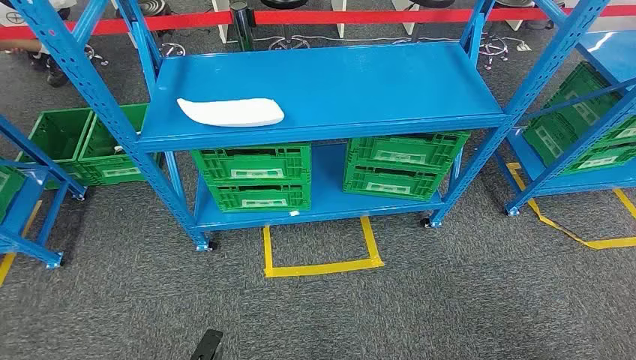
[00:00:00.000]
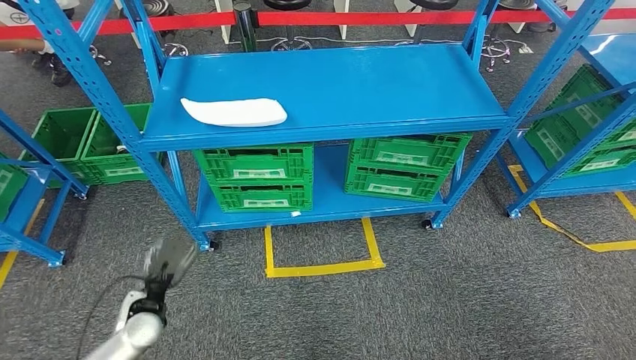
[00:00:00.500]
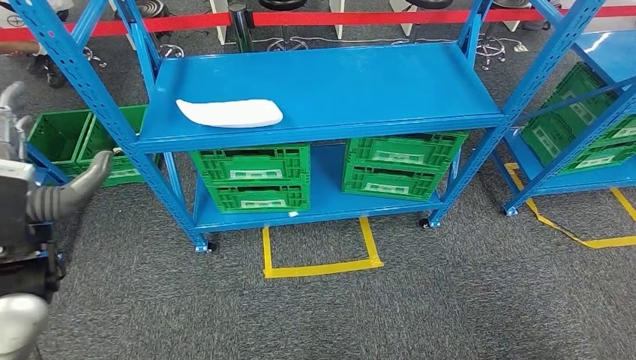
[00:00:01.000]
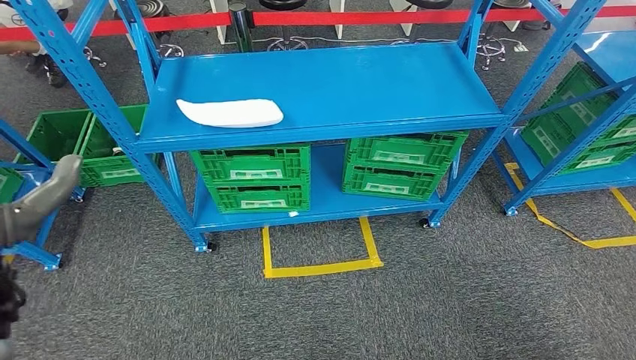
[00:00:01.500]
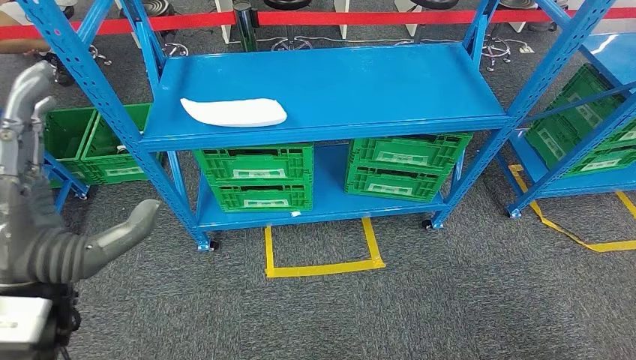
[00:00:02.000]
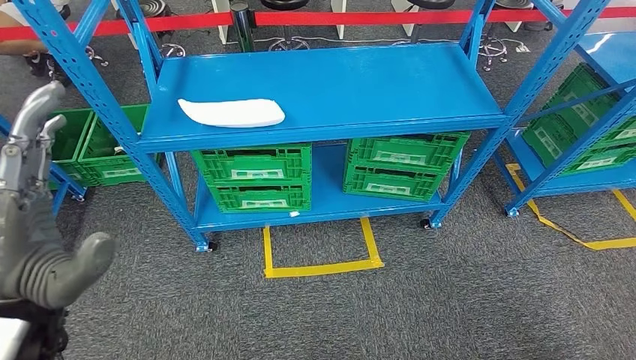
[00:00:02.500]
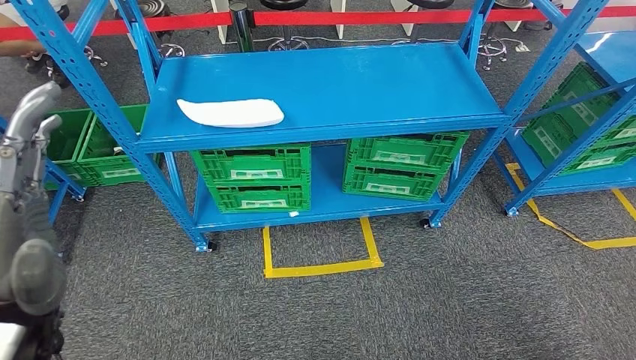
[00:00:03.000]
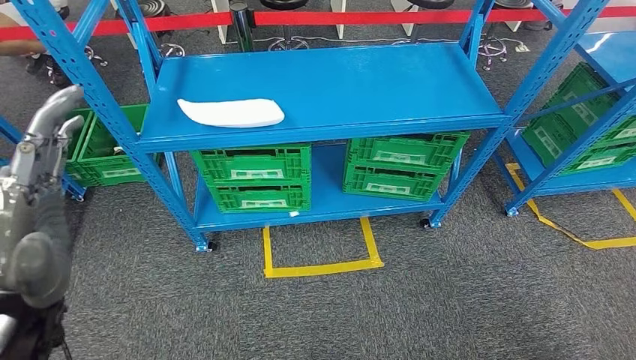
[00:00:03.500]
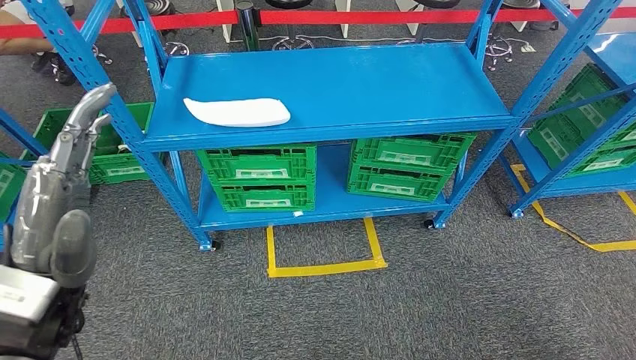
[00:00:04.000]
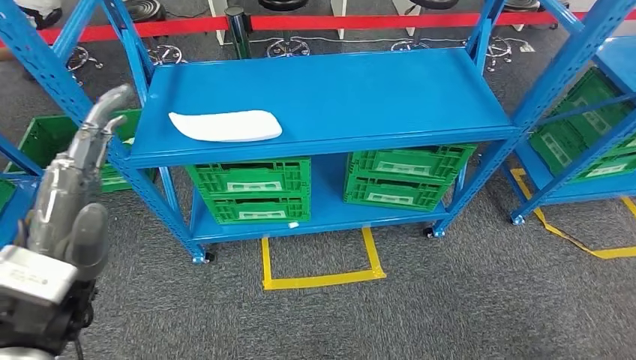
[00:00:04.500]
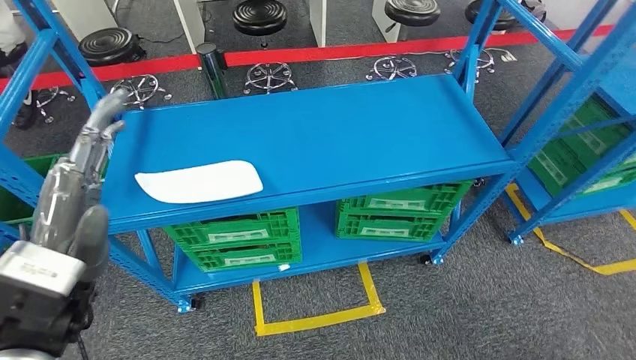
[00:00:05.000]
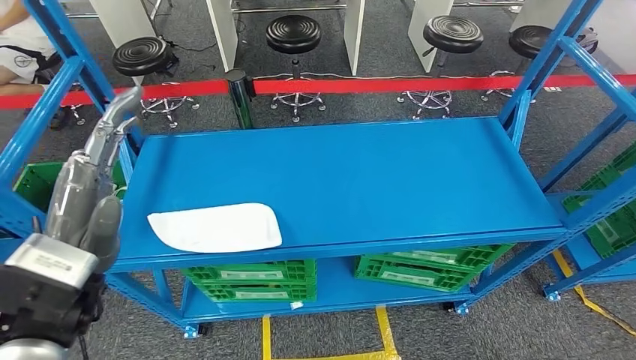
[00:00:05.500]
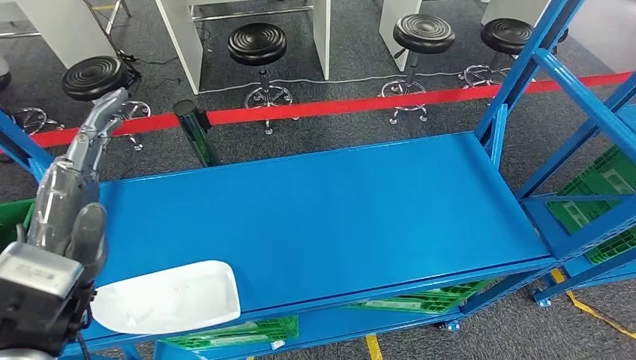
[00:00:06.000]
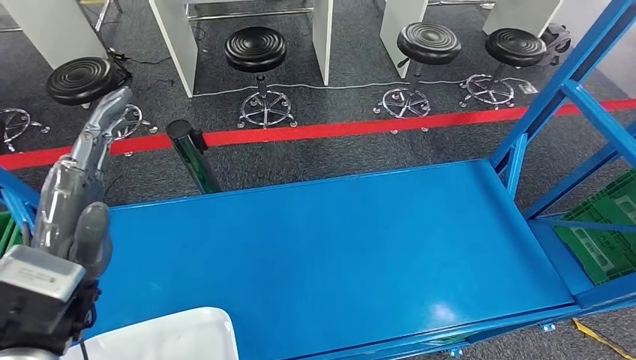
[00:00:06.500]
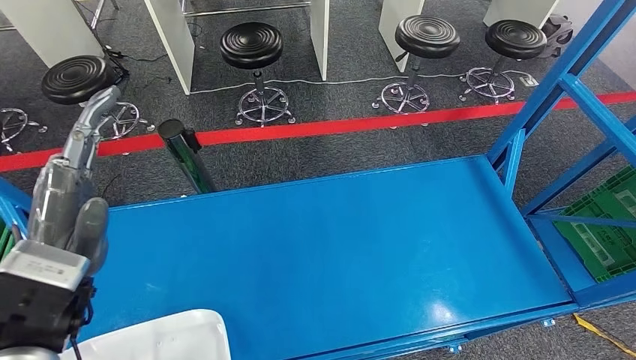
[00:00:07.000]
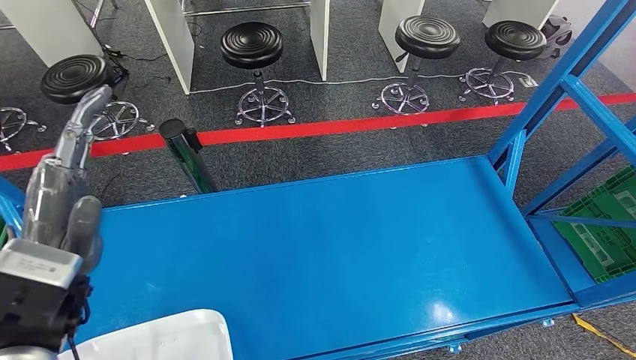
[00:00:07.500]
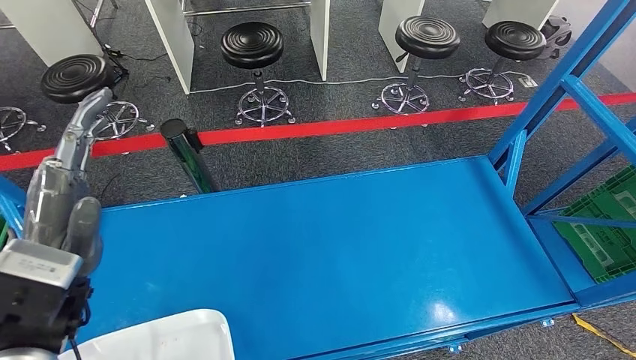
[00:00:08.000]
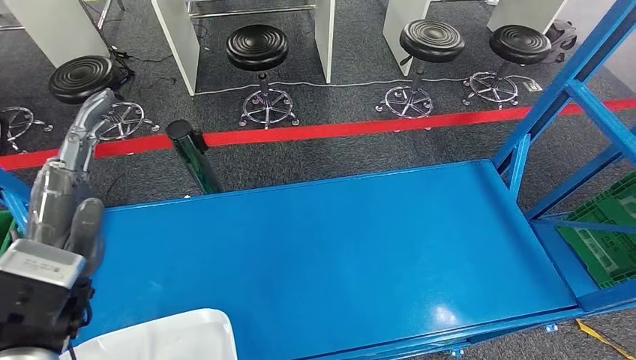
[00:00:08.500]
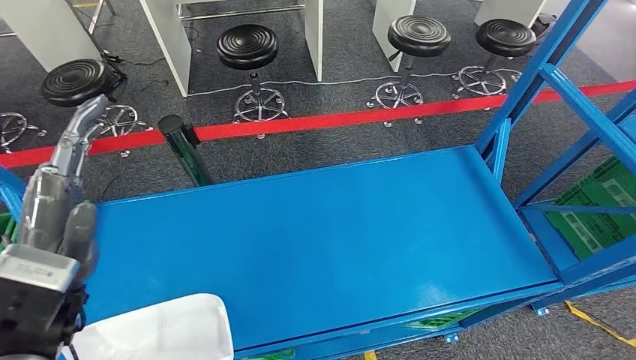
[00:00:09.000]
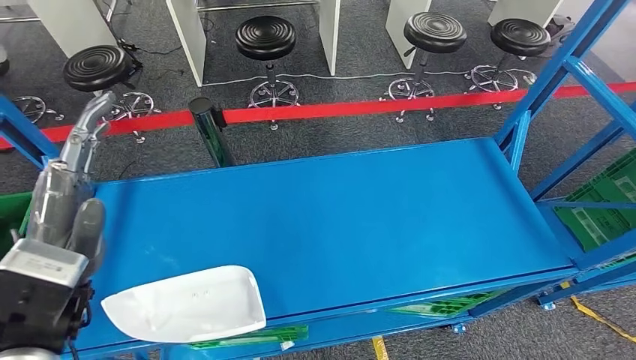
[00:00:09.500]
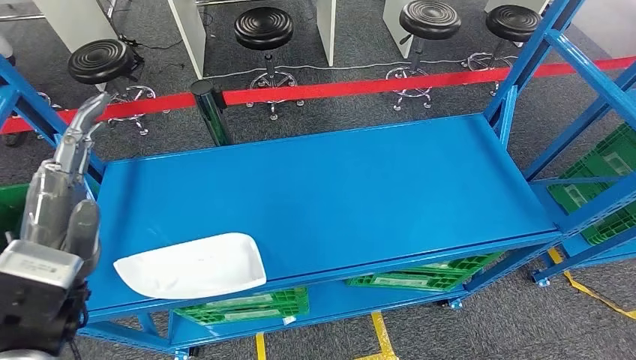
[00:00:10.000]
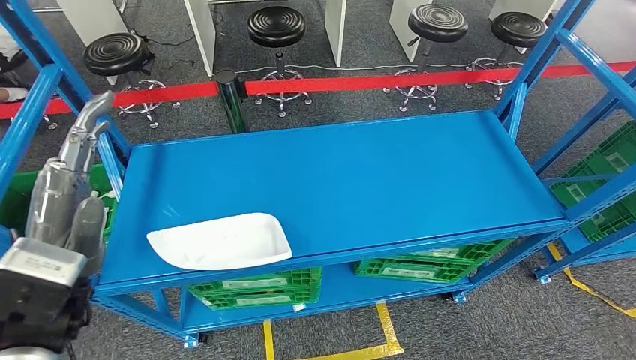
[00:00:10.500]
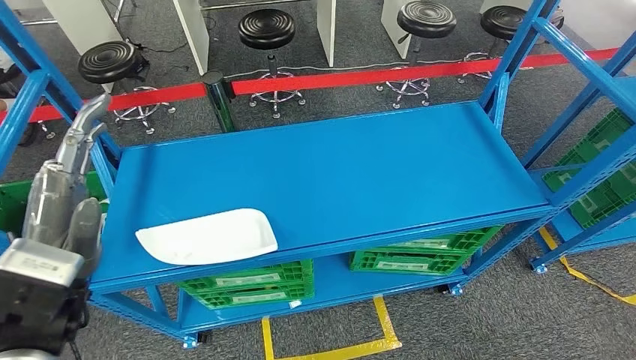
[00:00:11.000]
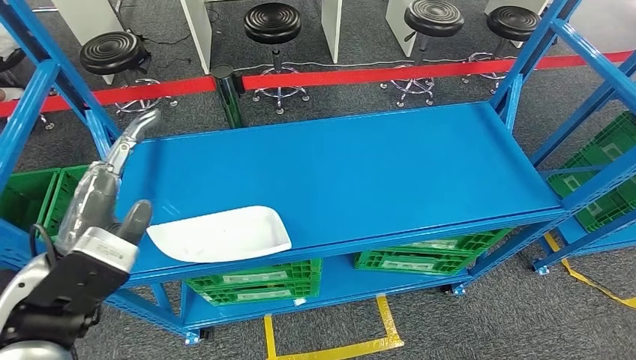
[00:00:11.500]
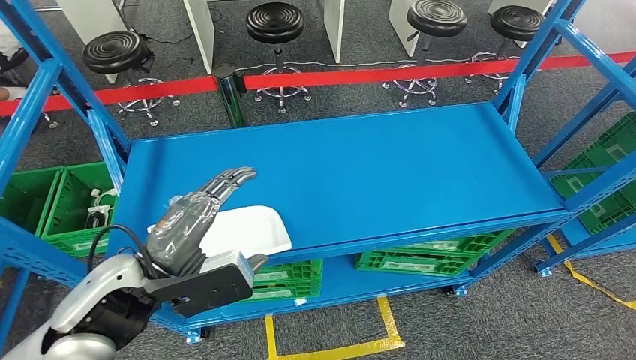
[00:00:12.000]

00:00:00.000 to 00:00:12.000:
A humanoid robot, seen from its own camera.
00:00:02.000 to 00:00:04.000: The hands stay close to where they were, moving slightly.

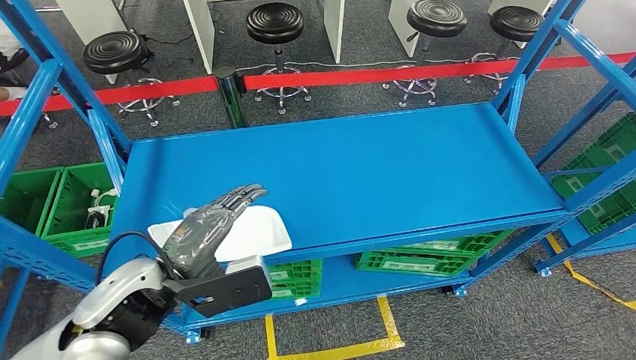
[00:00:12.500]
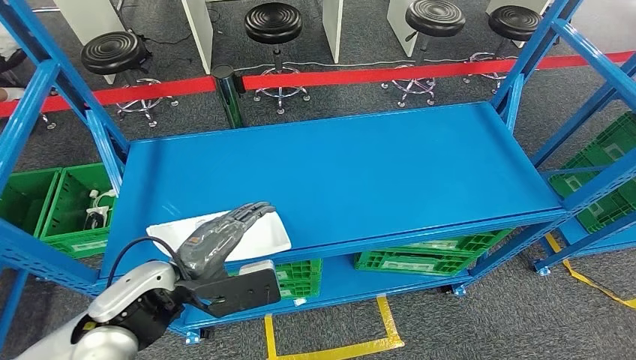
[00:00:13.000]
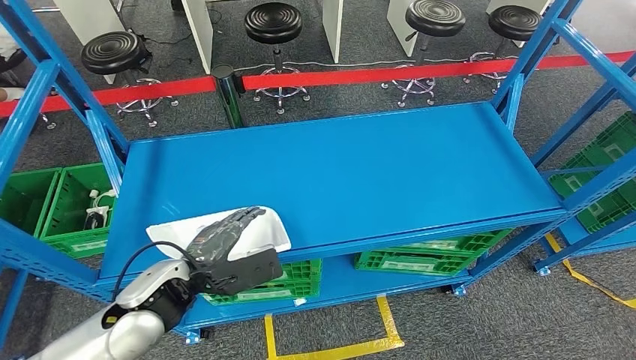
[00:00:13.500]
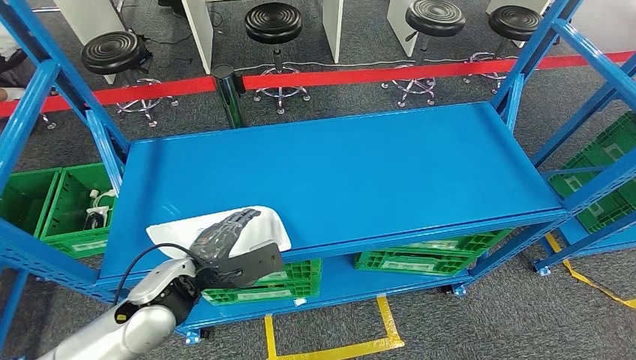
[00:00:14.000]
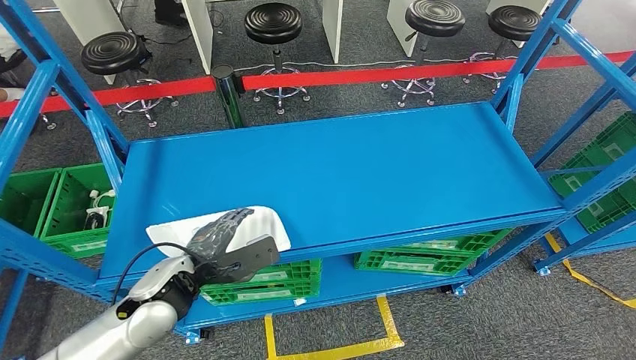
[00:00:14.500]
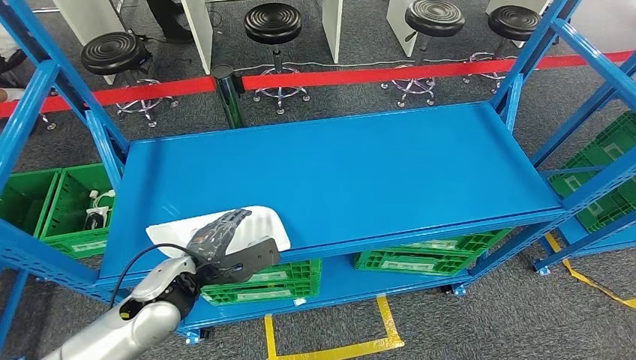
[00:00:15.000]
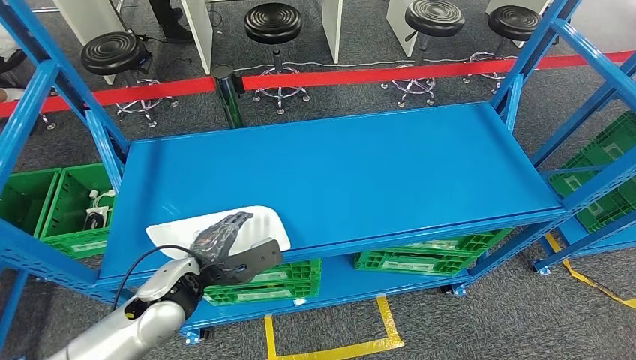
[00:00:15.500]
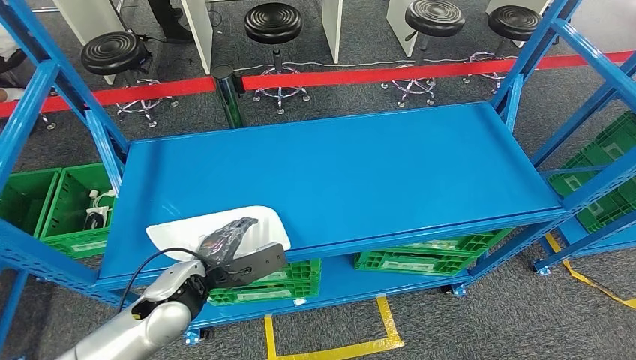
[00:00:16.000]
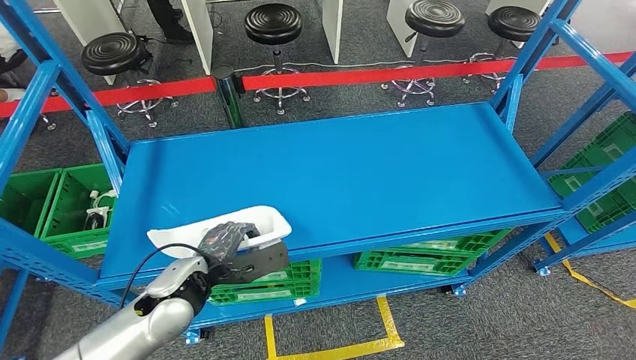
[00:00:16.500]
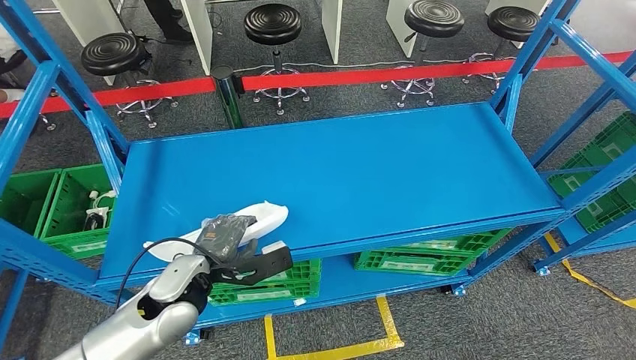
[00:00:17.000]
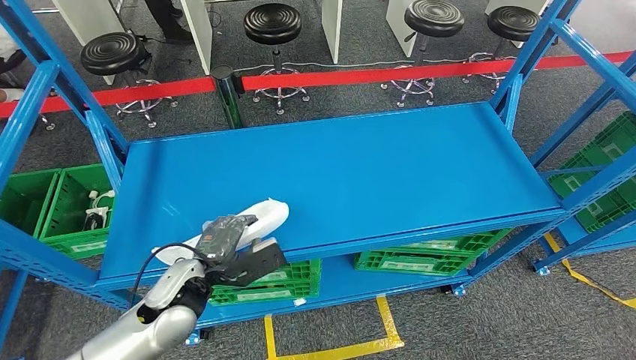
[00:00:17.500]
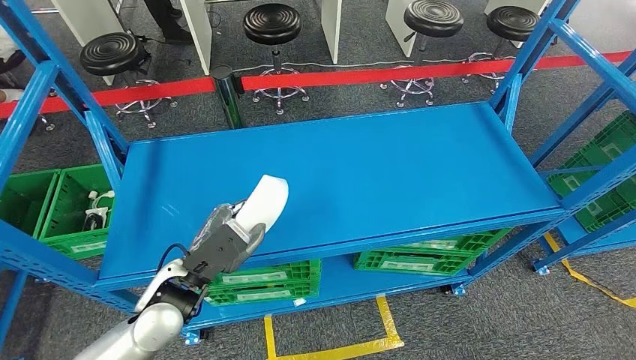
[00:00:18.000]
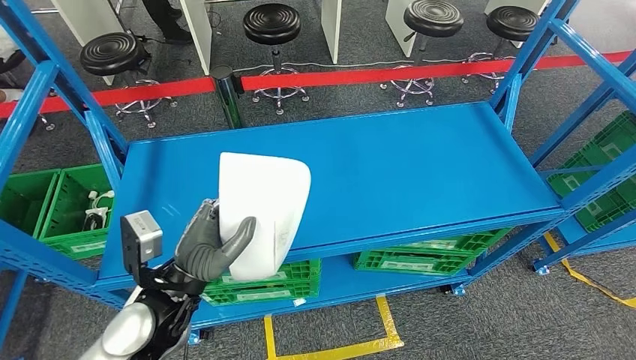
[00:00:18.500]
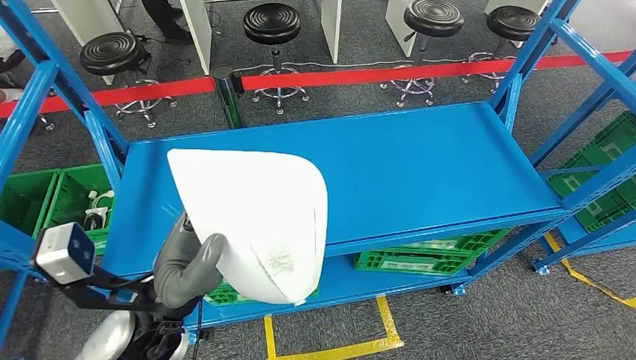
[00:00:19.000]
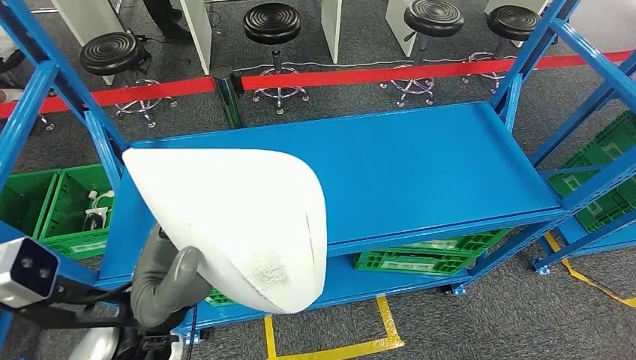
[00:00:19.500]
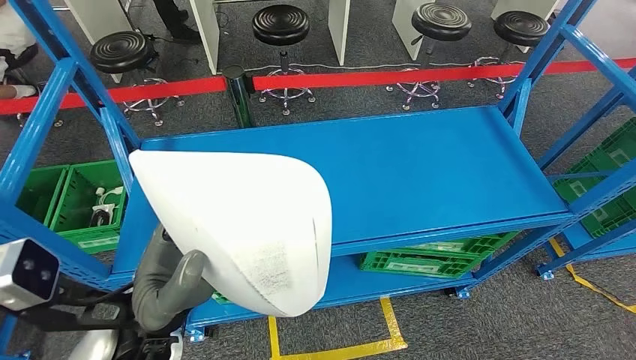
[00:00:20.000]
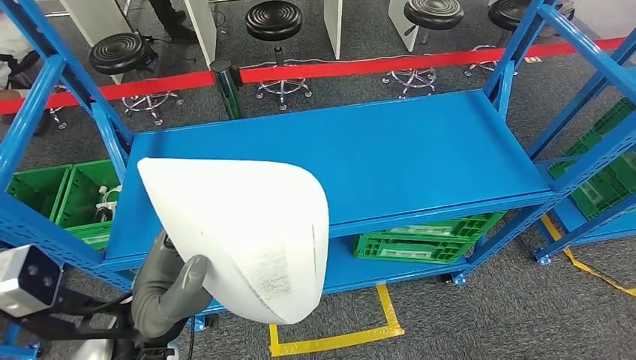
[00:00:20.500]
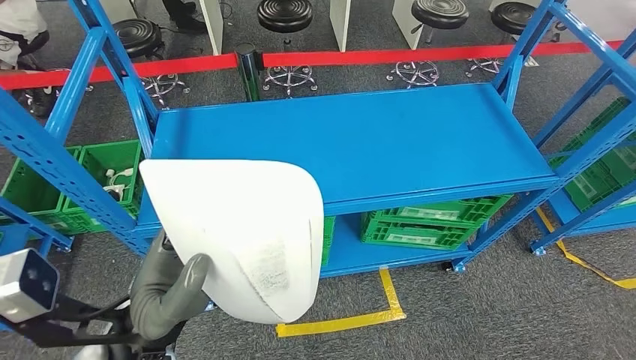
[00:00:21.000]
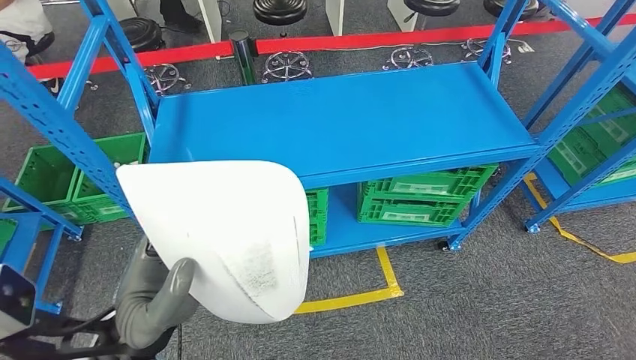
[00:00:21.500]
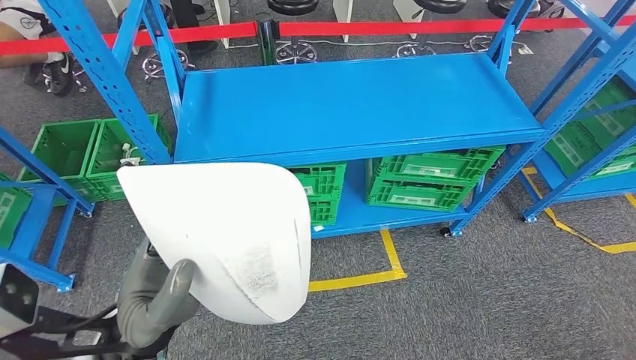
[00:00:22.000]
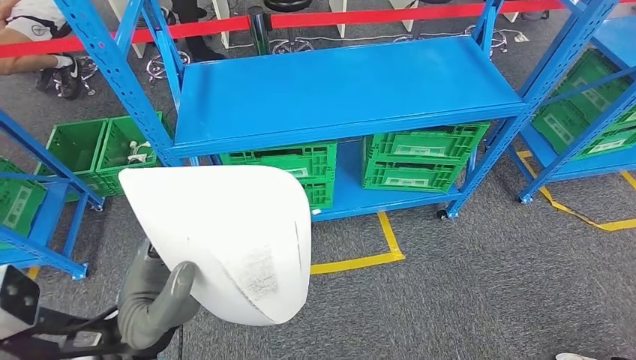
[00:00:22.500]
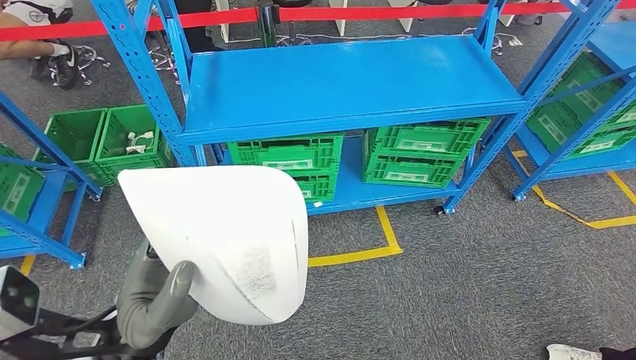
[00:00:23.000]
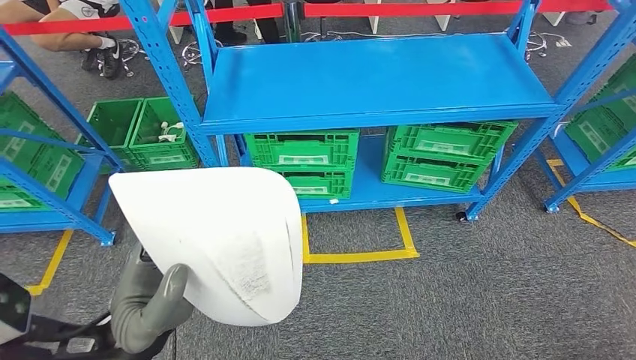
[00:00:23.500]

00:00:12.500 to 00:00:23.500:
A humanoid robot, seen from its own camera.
Step, 00:00:12.500 to 00:00:19.500: Pick up the small component from the shelf.
00:00:12.500 to 00:00:14.500: The left hand shifts about 10 cm downward.
00:00:14.500 to 00:00:16.000: The hands make only small movements.
